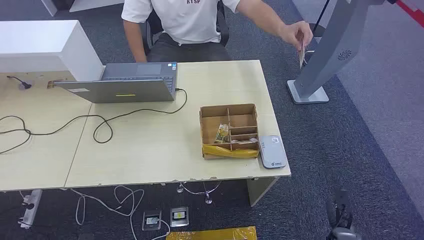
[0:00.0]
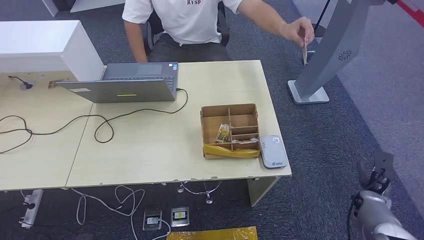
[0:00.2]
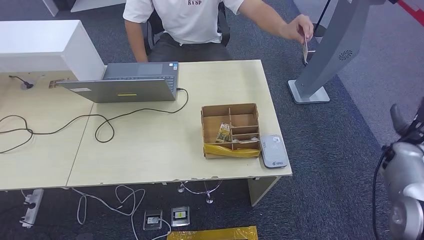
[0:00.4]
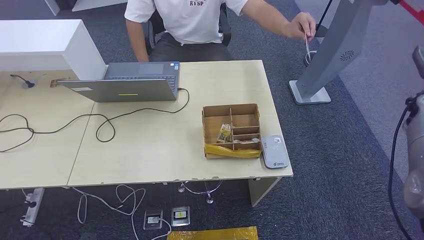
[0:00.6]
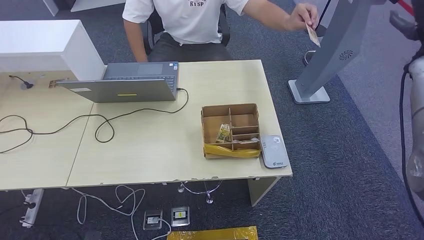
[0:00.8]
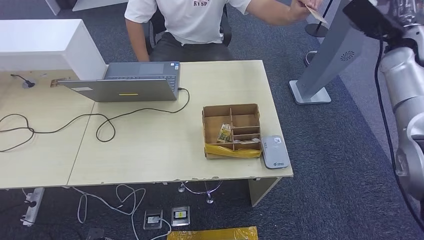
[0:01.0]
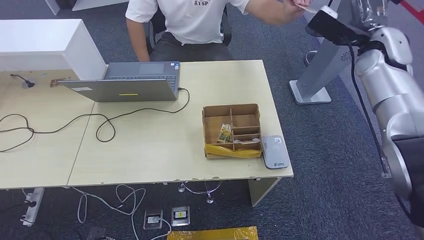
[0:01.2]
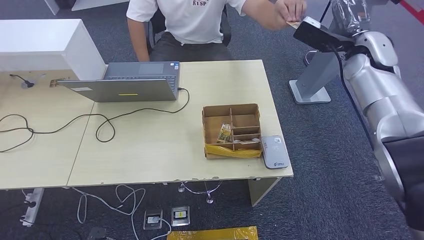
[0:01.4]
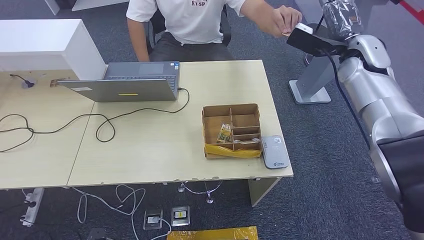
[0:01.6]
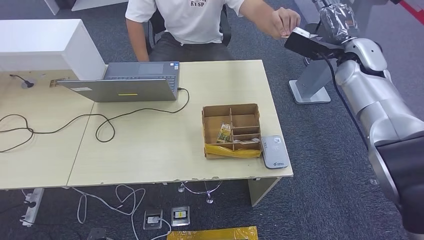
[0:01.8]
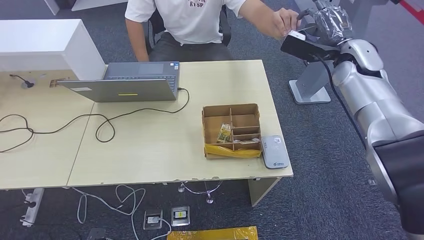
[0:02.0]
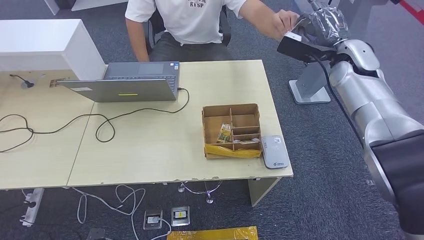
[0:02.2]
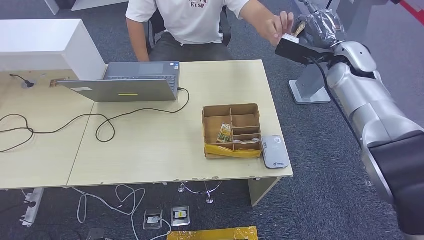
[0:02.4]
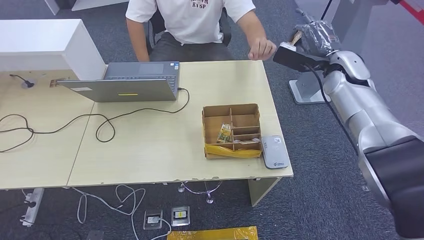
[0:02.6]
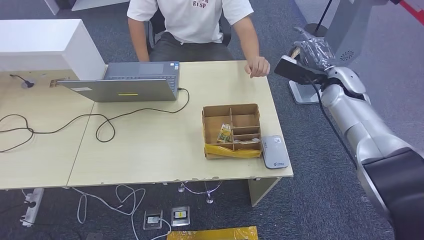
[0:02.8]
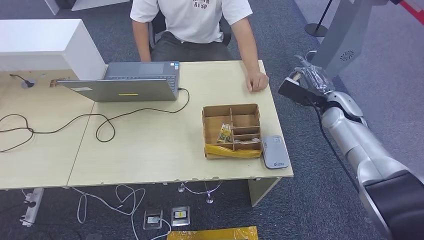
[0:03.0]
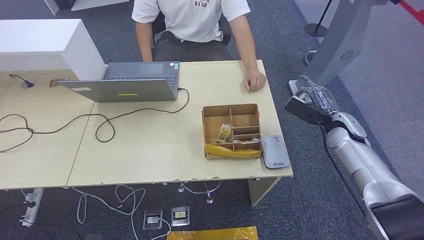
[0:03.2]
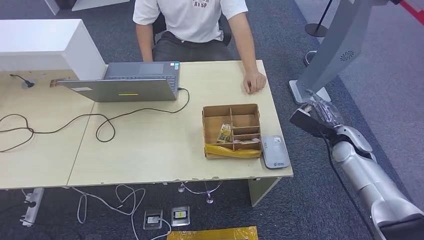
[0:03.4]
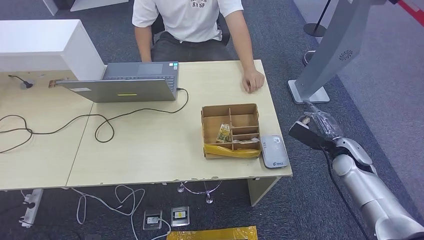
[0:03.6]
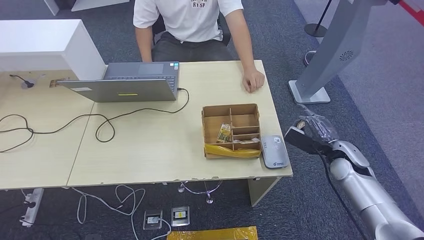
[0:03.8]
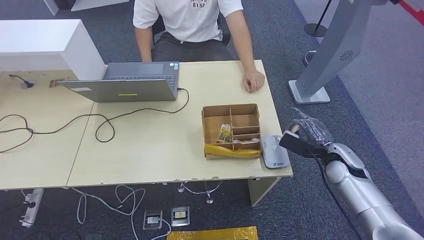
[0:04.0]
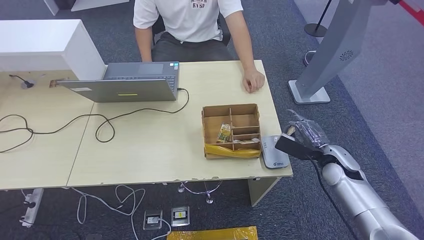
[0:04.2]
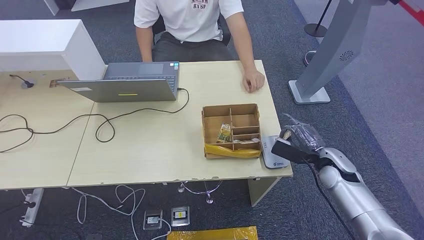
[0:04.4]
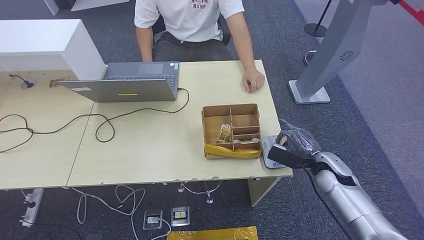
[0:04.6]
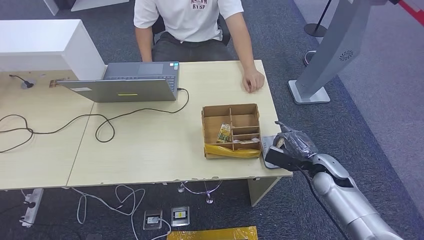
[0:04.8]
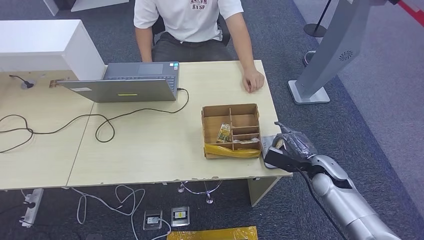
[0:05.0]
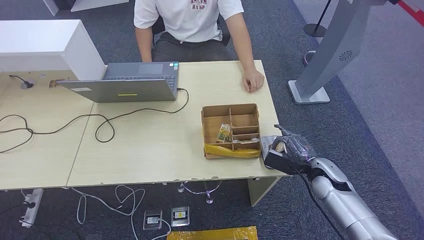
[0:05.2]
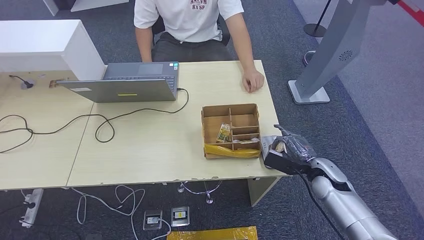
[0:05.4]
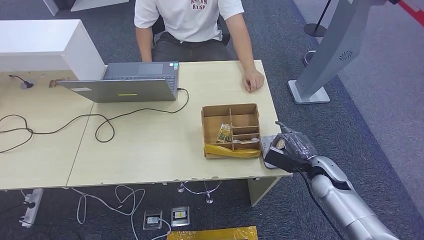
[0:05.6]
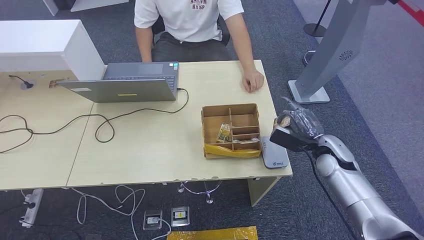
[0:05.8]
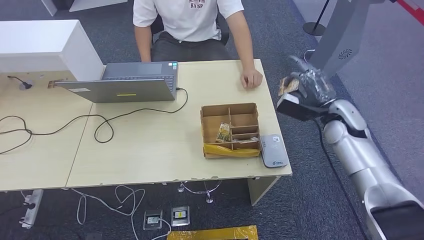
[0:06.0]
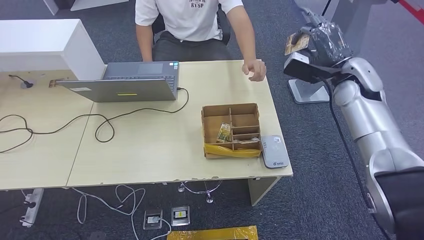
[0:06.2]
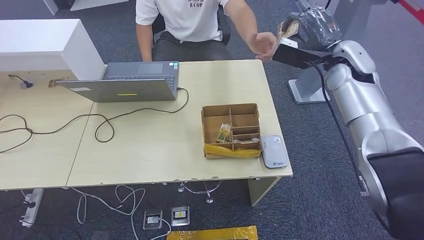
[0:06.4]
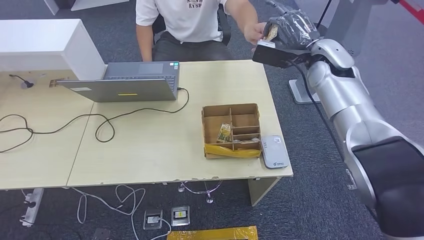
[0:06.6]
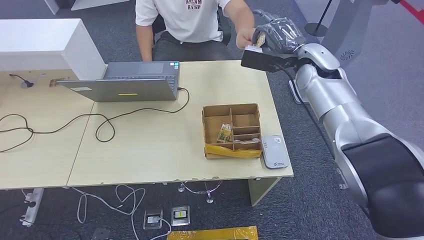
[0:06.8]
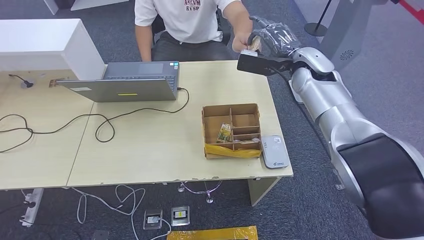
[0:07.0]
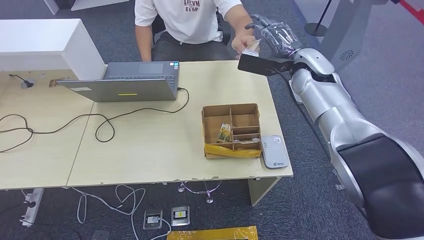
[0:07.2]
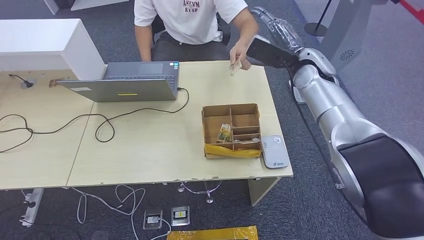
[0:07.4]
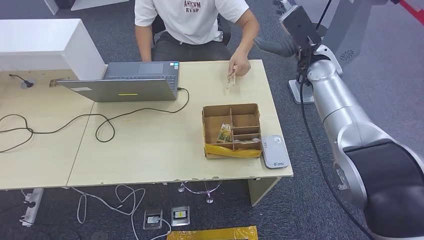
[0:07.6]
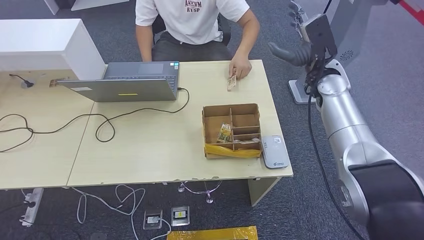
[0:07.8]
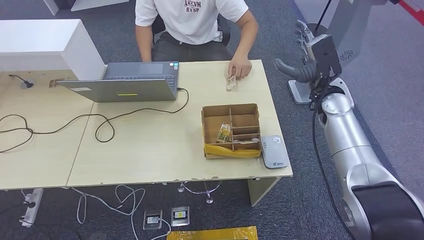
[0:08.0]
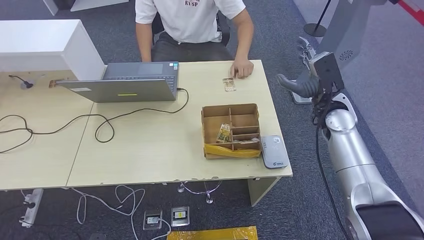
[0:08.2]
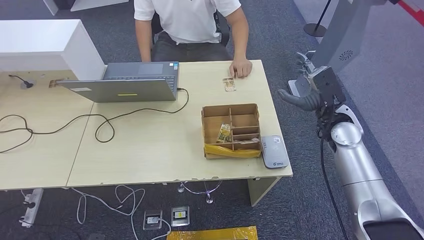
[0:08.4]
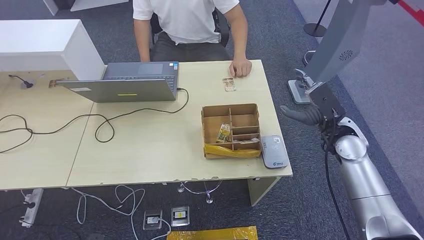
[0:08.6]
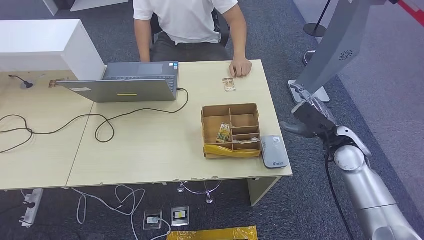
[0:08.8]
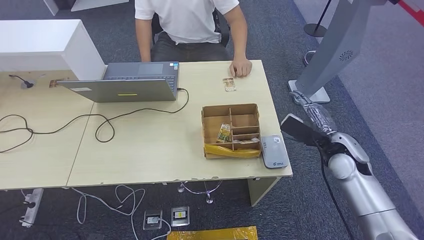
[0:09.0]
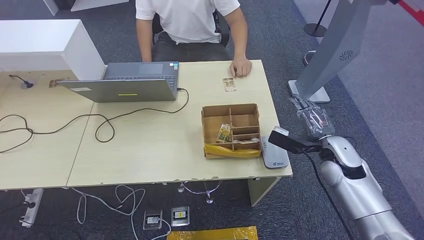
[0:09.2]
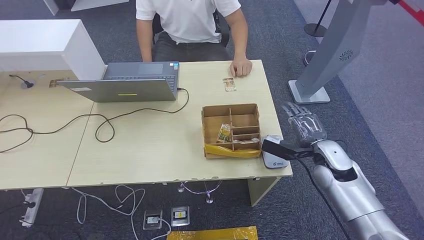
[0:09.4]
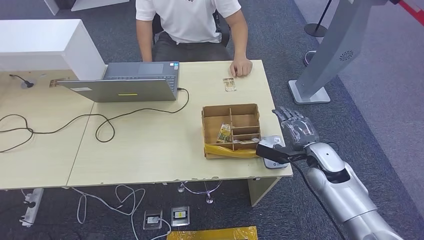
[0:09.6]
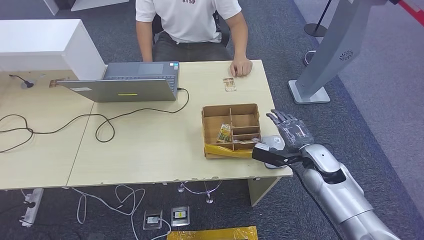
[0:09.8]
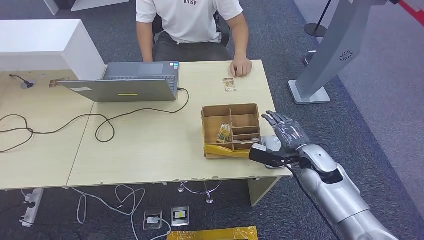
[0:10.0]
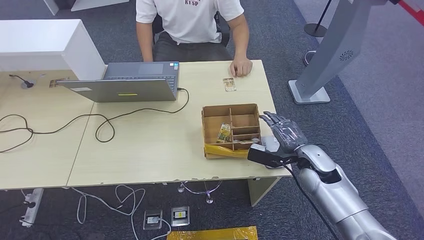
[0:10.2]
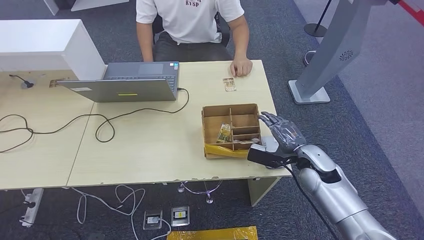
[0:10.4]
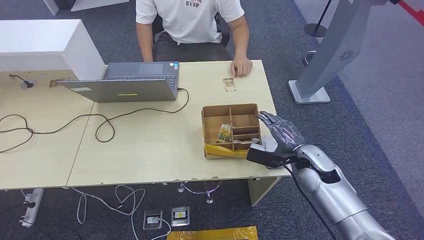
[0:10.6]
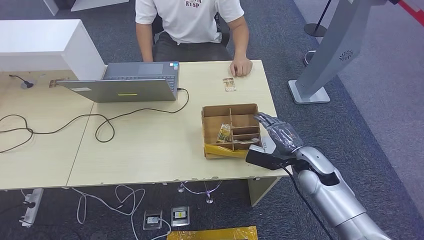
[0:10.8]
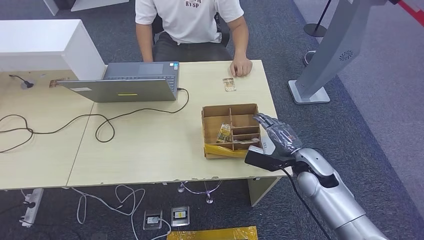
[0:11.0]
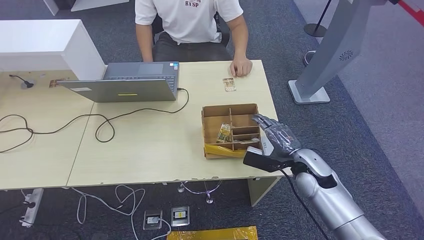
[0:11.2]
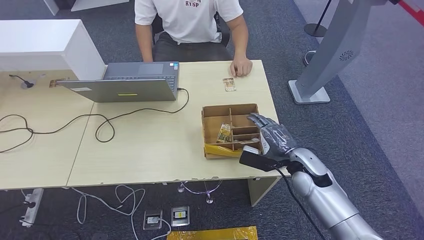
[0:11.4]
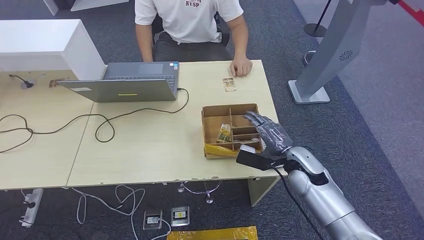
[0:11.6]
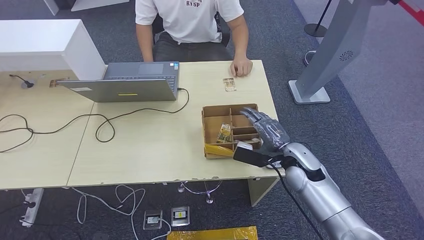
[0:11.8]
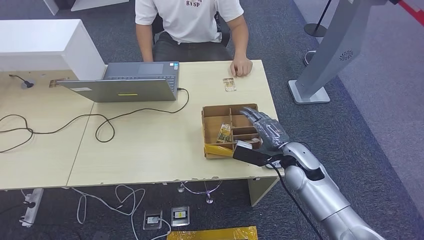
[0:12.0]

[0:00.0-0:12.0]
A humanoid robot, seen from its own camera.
Step, 0:00.0 to 0:02.4: Take the ID card from the person's hand.
Step, 0:03.0 to 0:05.4: Place the ID card on the card reader.
Step, 0:06.0 to 0:09.0: Hand the ID card to the person.
0:01.6 to 0:03.0: The right hand is displaced downward by some 15 cm.
0:03.0 to 0:04.4: The right hand goes roughly 15 cm backward and downward.
0:04.4 to 0:06.0: The right hand travels upward and forward by roughly 15 cm.
0:06.0 to 0:07.6: The right hand is displaced upward, forward and to the left by approximately 15 cm.
0:07.6 to 0:09.0: The right hand is displaced backward and downward by approximately 20 cm.
0:09.0 to 0:10.4: The right hand is displaced to the left and downward by about 5 cm.
0:10.4 to 0:12.0: There are only small adjustments of the hands.

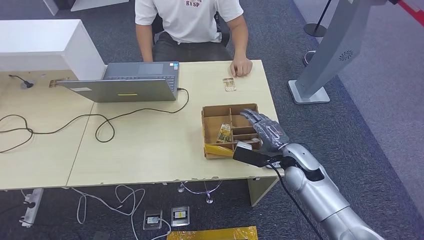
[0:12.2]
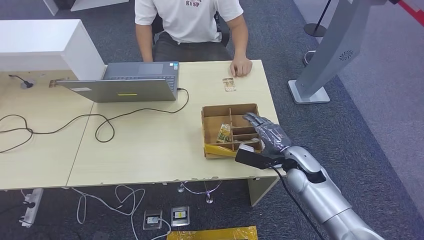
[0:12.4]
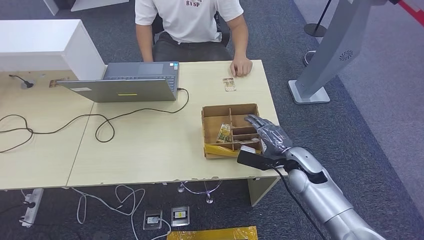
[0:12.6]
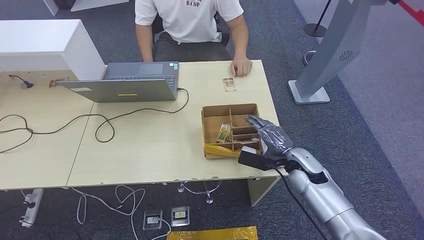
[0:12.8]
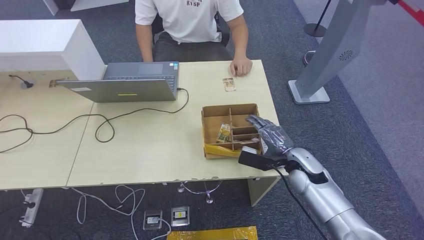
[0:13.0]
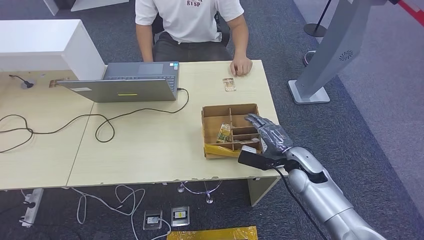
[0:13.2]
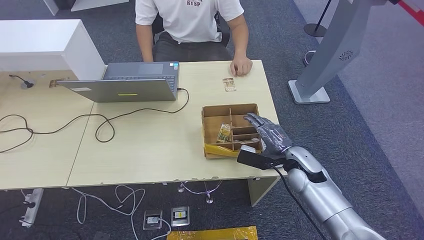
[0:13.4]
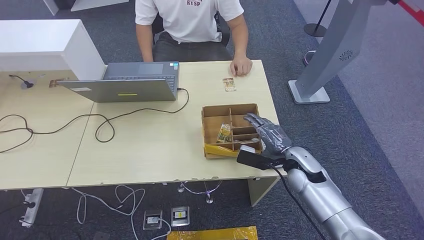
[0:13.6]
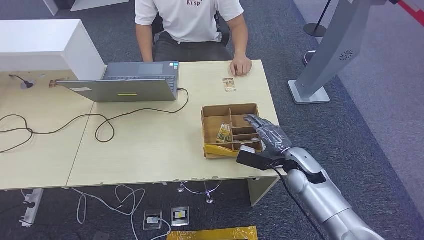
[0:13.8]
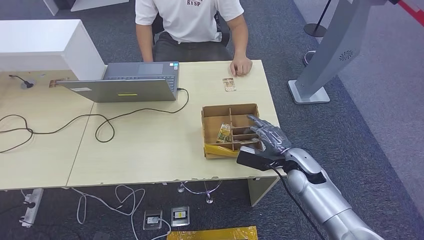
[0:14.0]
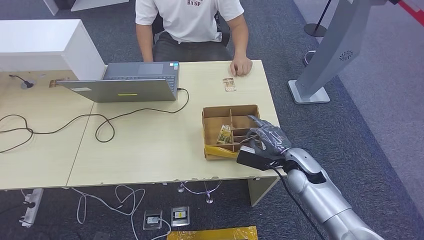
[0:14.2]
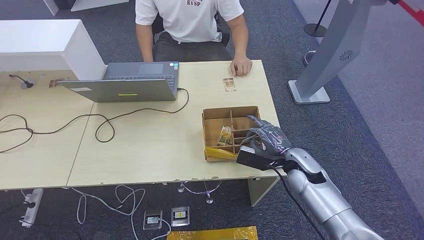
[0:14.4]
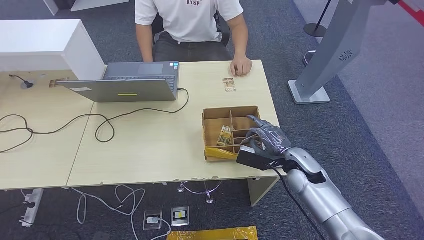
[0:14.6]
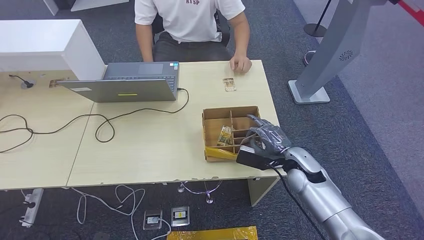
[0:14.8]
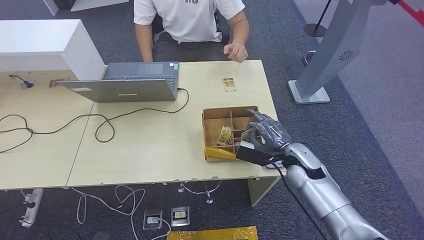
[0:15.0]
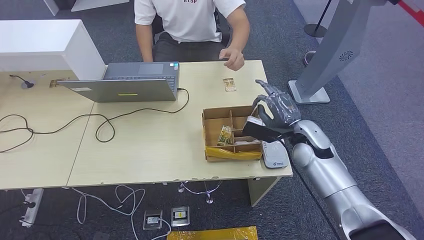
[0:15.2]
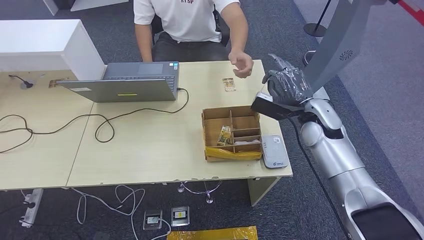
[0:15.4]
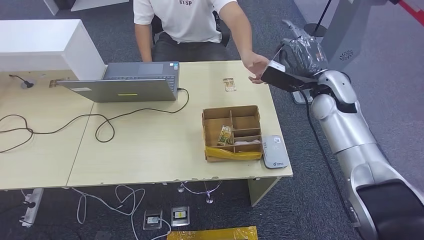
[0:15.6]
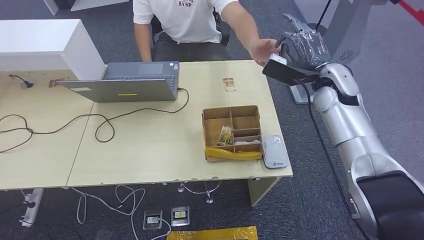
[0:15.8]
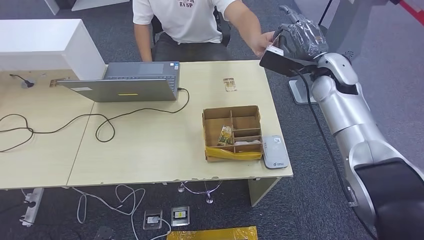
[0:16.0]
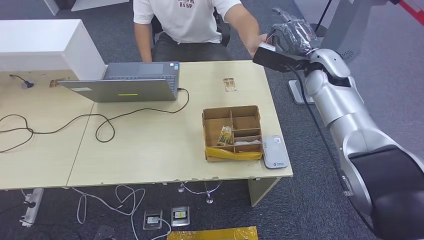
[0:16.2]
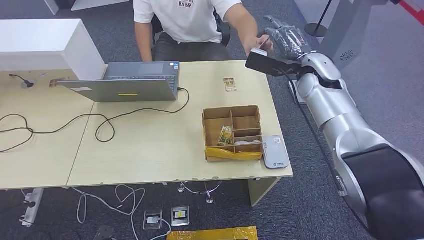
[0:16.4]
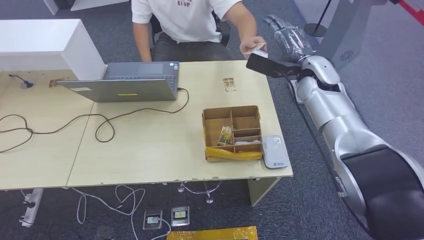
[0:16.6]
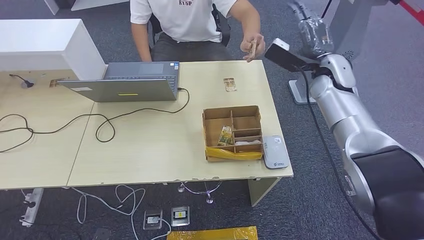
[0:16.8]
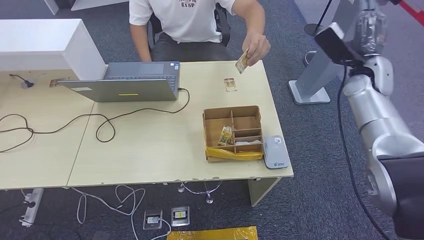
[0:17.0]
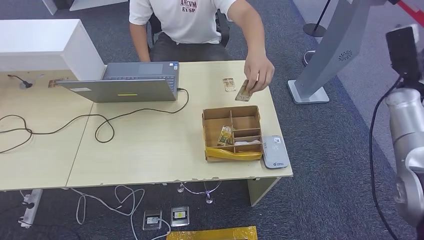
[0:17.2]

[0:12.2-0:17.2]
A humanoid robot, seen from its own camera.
Step, 0:12.2 to 0:15.2: Pick up the room key from the key card box.
0:12.2 to 0:13.8: The hands move only a little.
0:13.8 to 0:15.6: The right hand is displaced upward and forward by roughly 20 cm.
0:15.6 to 0:17.2: The right hand travels to the right by some 20 cm.
